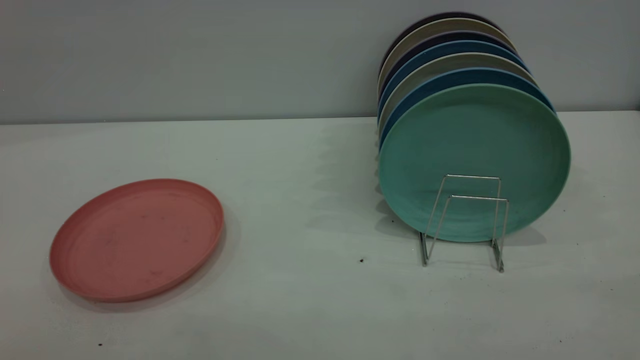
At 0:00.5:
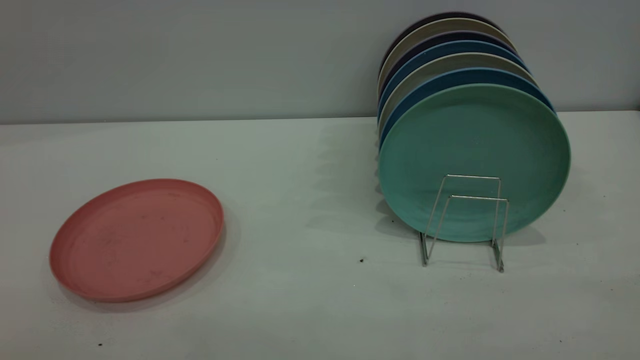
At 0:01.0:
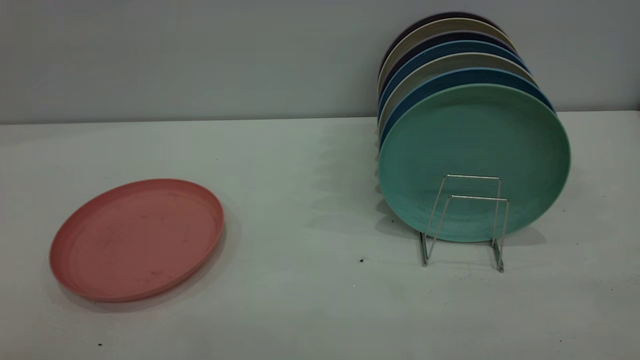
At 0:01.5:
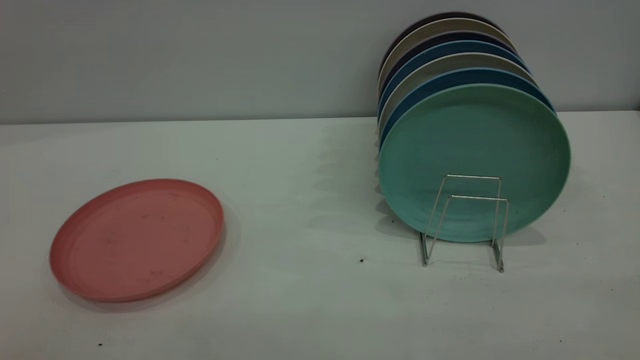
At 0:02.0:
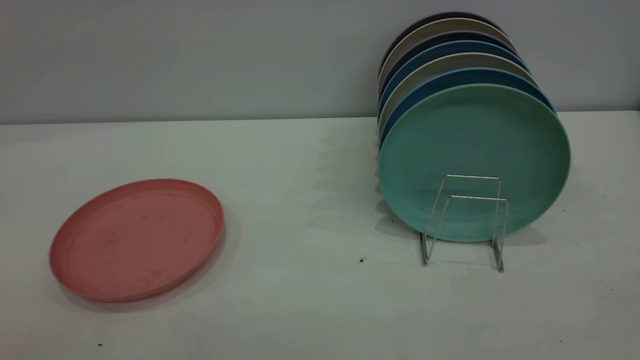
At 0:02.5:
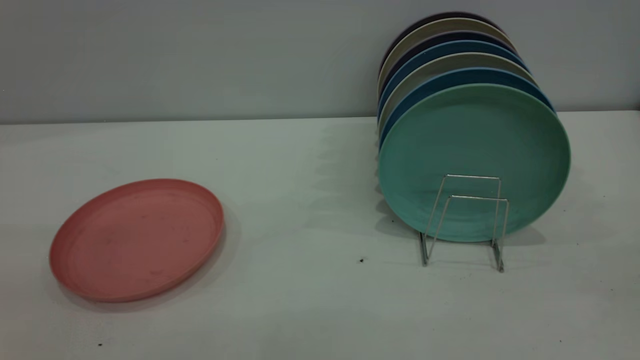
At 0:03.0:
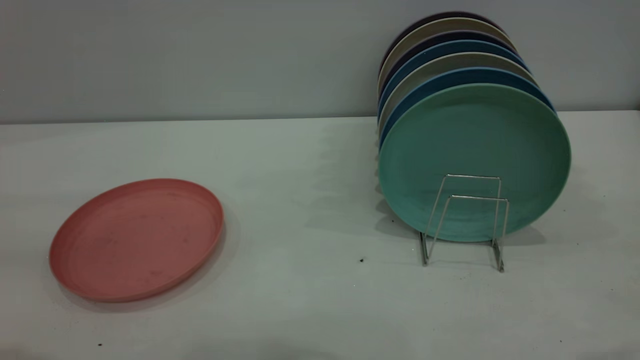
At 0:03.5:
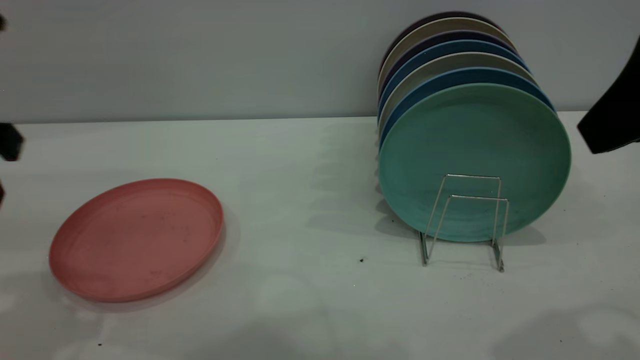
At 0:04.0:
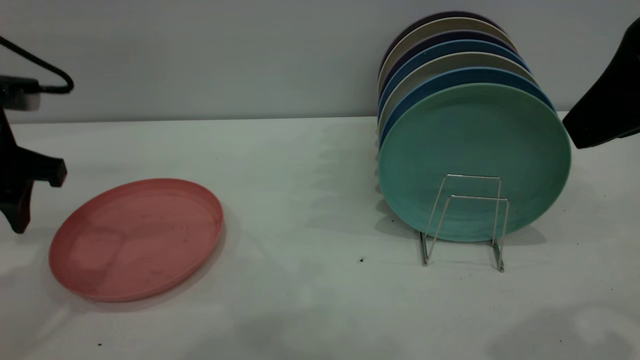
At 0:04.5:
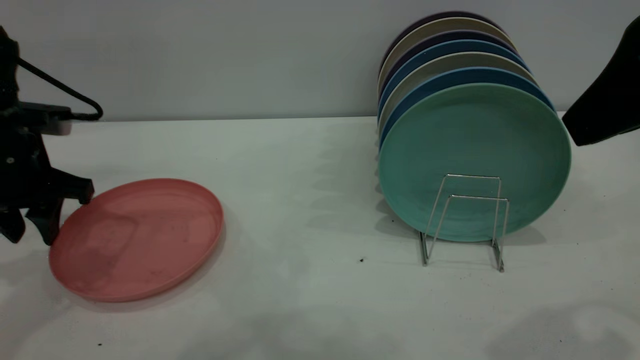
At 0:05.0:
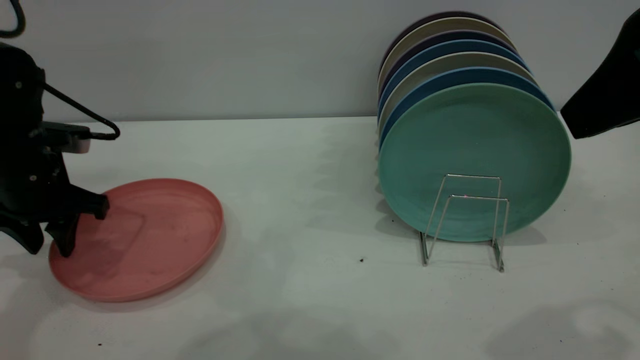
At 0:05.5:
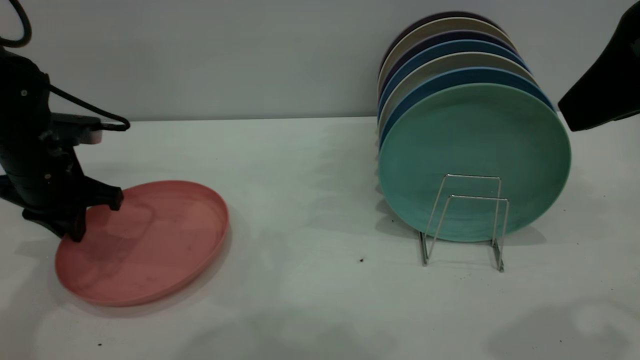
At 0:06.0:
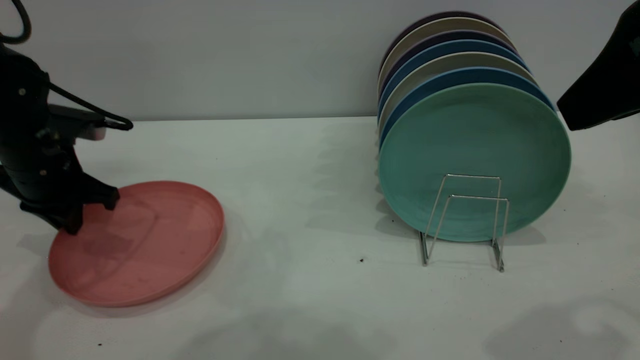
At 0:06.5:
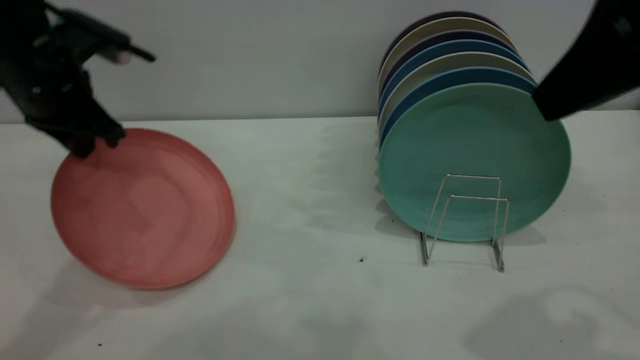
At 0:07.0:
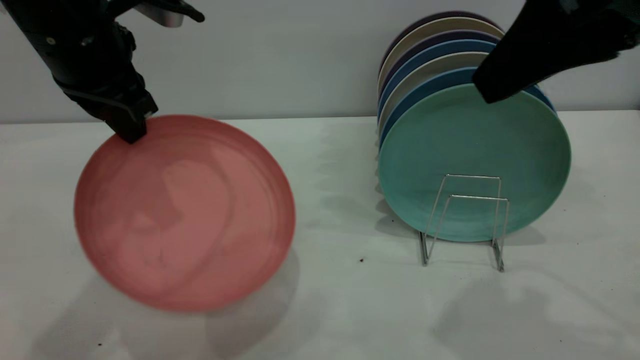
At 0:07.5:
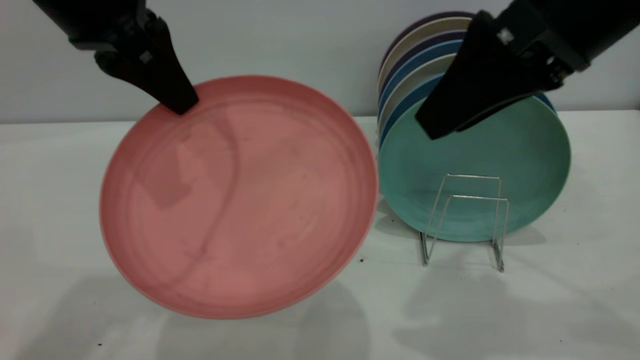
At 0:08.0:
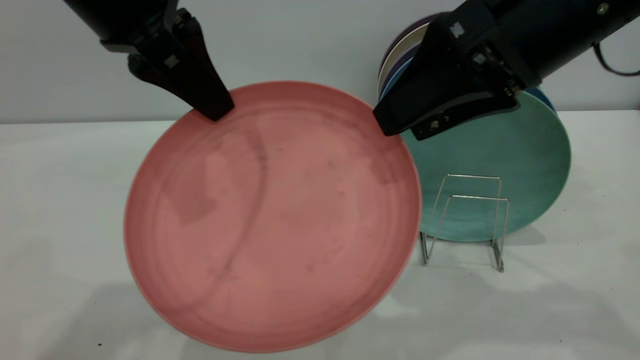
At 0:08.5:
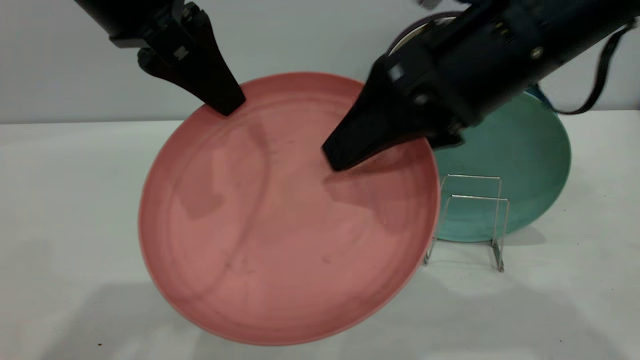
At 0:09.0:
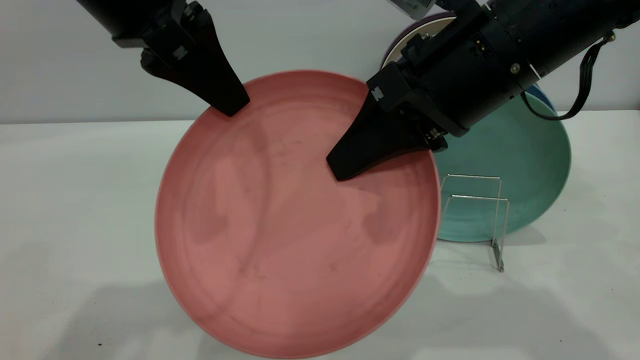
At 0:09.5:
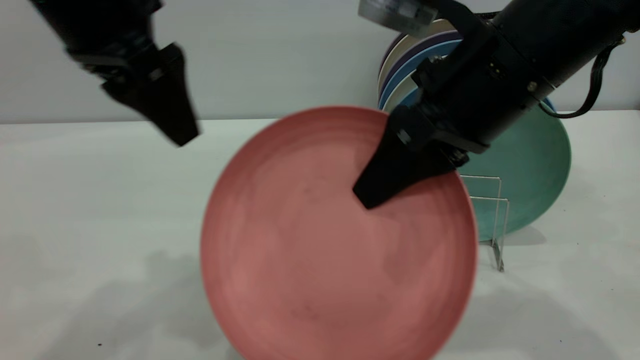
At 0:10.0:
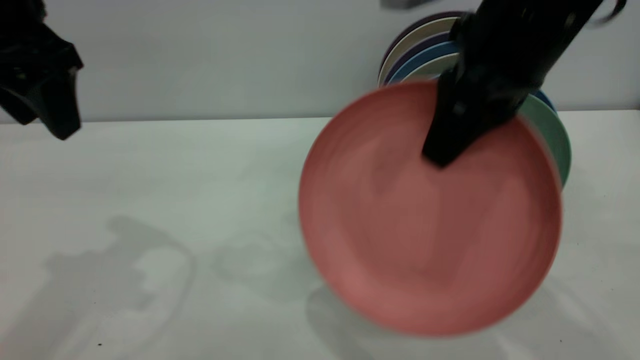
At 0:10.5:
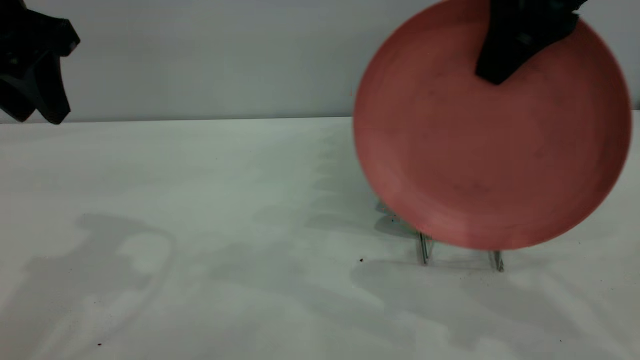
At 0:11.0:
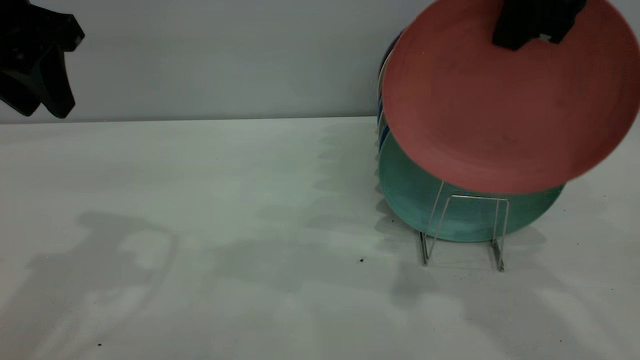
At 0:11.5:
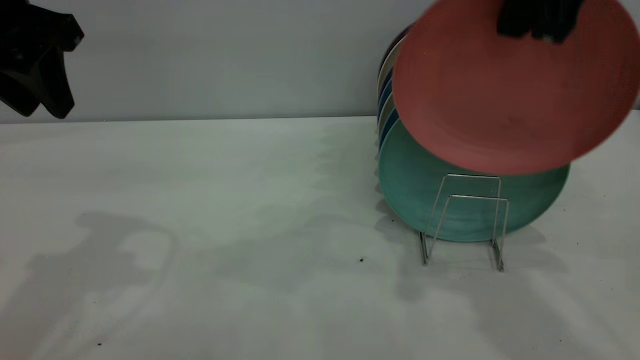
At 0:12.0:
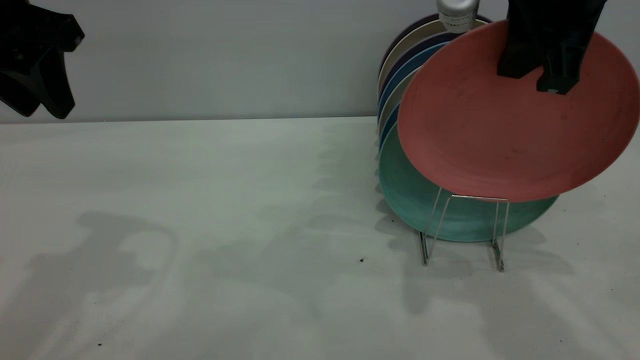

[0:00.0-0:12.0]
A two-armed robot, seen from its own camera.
Task of the whole recording: put the plate on the plate rack.
Step, 0:00.0 to 0:06.5: Pick up the plate with the left gripper.
Step, 0:07.0 to 0:09.0: Pass the plate from the left gripper to the right gripper.
0:02.0 to 0:04.0: The left gripper moves forward and downward, about 40 cm, while the right gripper moves forward and to the left, roughly 25 cm.
0:04.0 to 0:06.0: The left gripper goes some 10 cm downward and forward, and closes its fingers.
0:06.0 to 0:08.0: The left gripper travels upward, to the right and backward by about 25 cm. The right gripper moves forward and to the left, approximately 10 cm.
0:08.0 to 0:10.0: The left gripper is displaced to the left by some 10 cm, and opens up. Meanwhile the right gripper closes its fingers.

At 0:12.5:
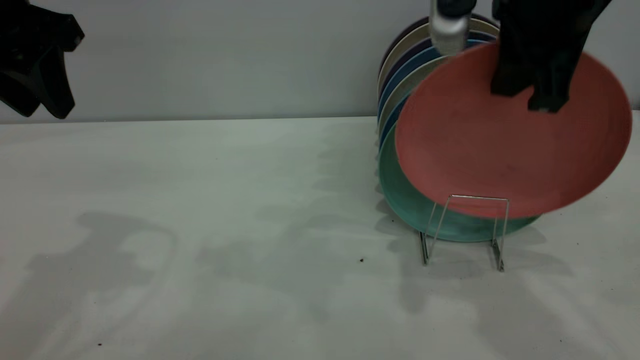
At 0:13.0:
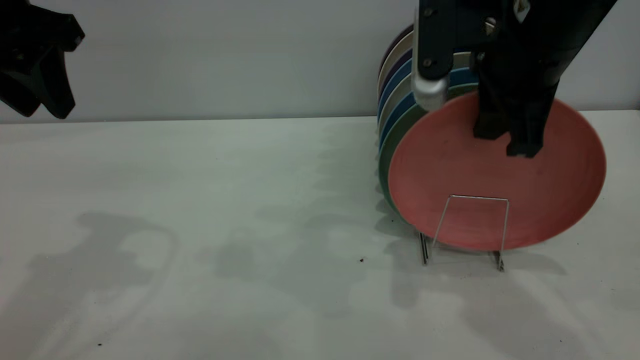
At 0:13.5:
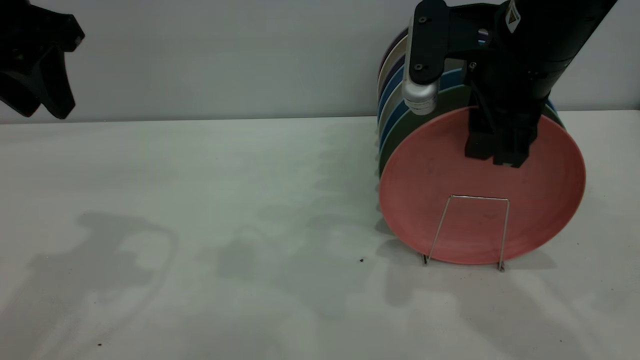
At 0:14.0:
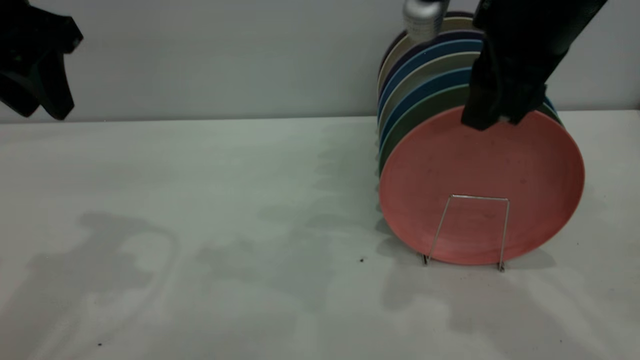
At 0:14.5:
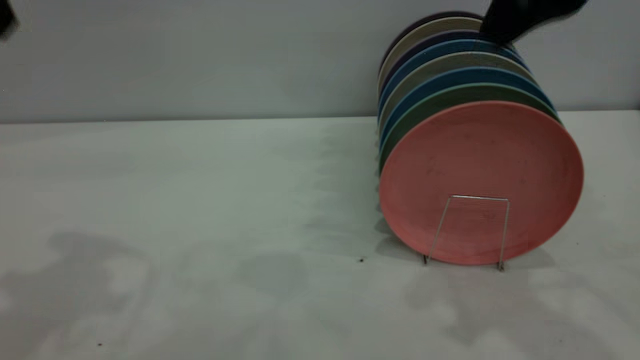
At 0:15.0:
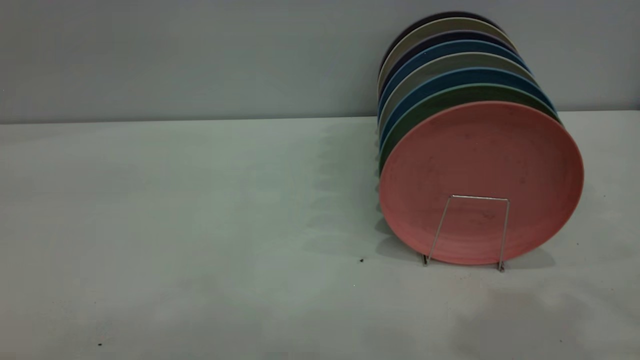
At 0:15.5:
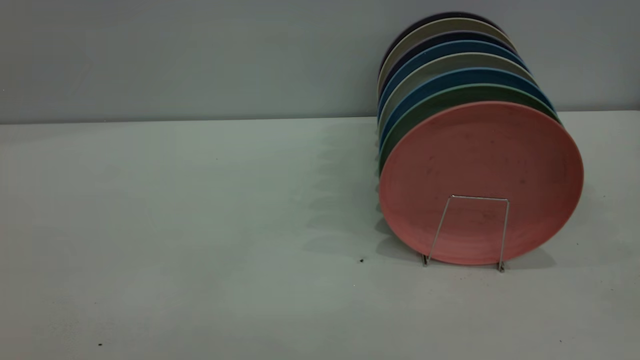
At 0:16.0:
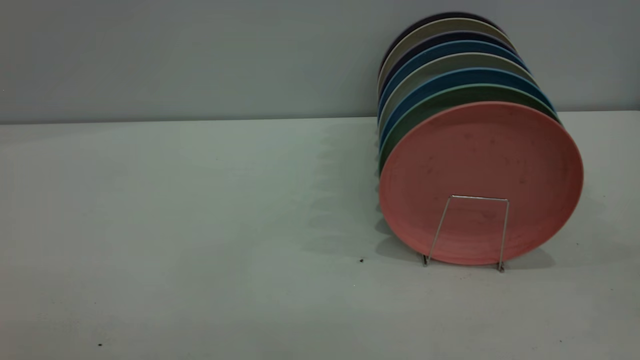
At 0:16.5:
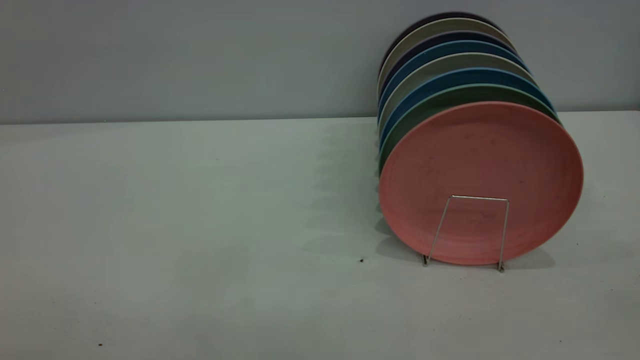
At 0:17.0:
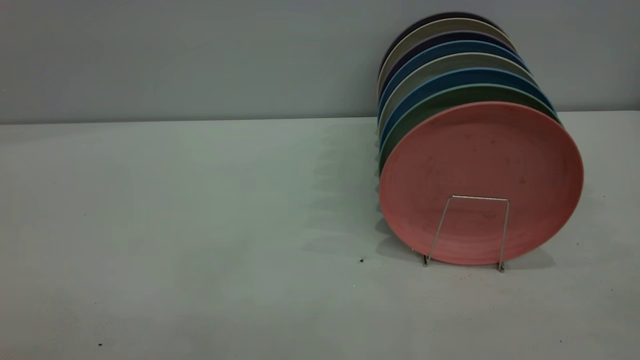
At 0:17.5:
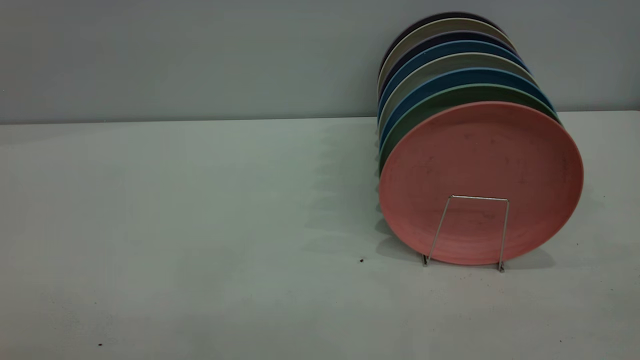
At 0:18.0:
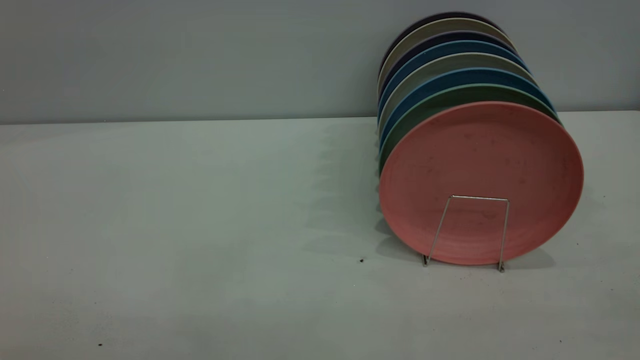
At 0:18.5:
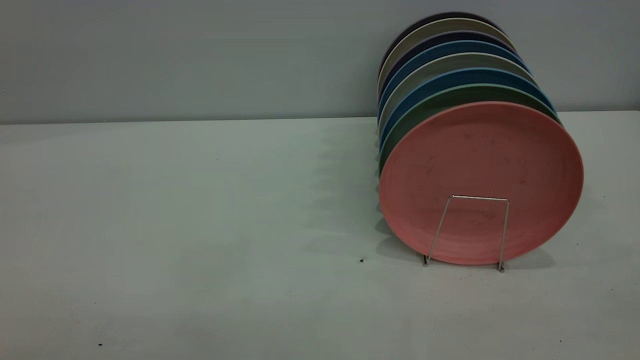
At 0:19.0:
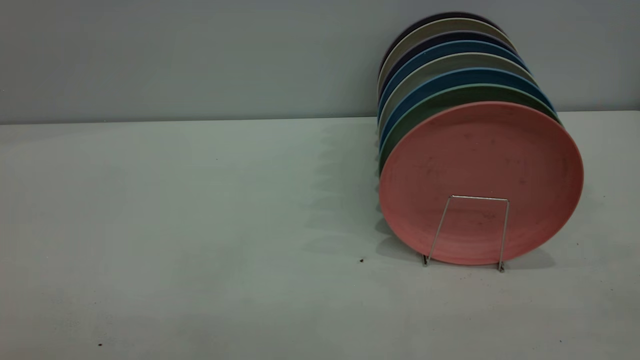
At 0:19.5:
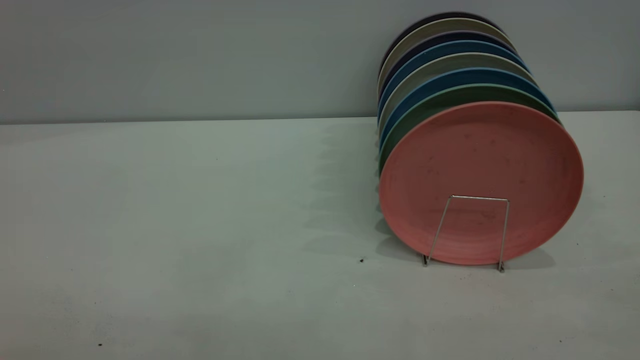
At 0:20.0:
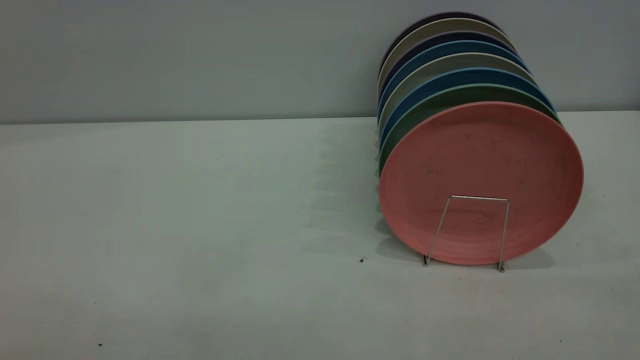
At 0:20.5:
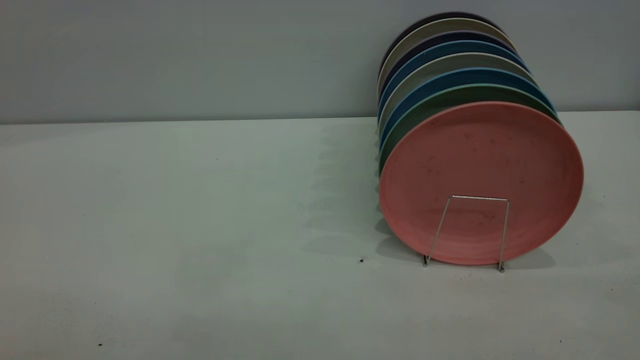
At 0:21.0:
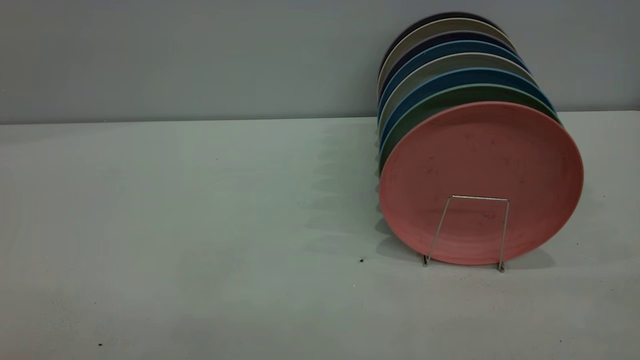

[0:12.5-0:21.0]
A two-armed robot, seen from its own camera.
Task of the whole recording: put the plate on the plate rack.
Step, 0:12.5 to 0:14.5: Place the plate on the shelf.
0:12.5 to 0:14.5: The two grippers go some 10 cm upward. The right gripper opens its fingers.
0:14.5 to 0:16.5: The right gripper moves backward and to the right, approximately 30 cm.
